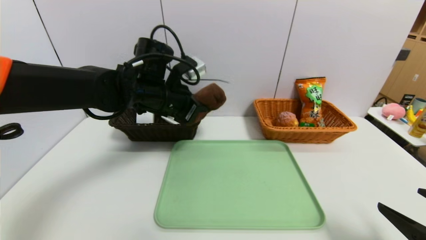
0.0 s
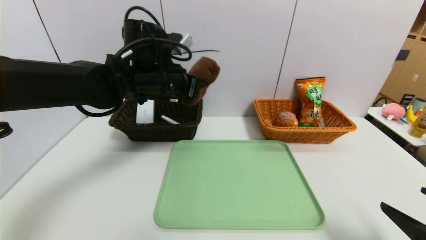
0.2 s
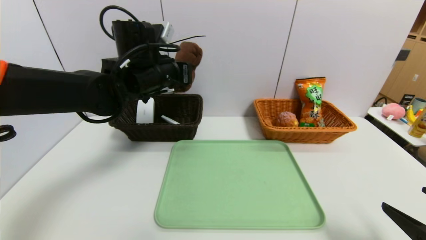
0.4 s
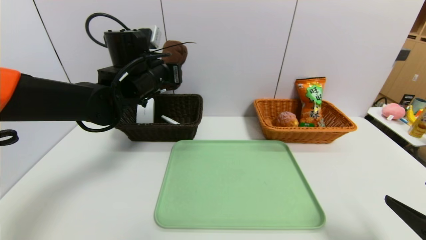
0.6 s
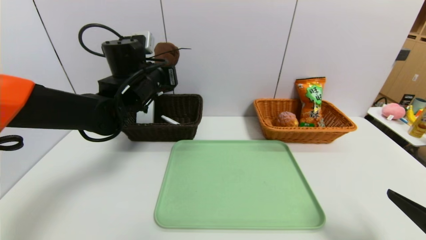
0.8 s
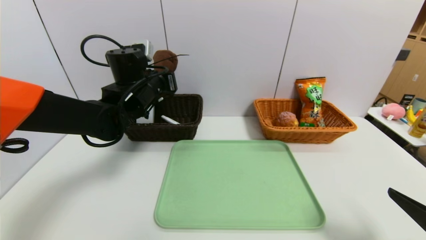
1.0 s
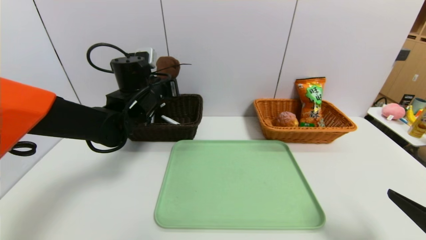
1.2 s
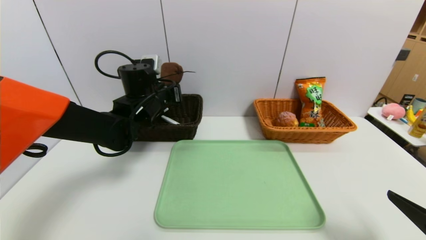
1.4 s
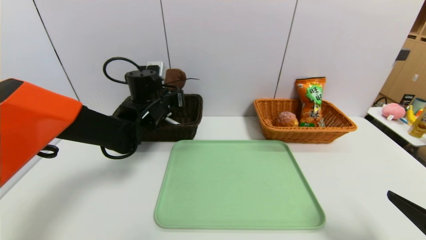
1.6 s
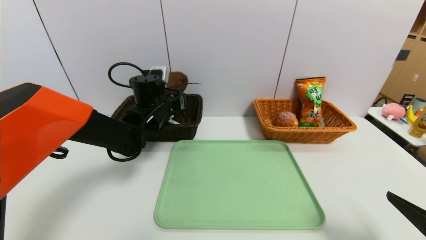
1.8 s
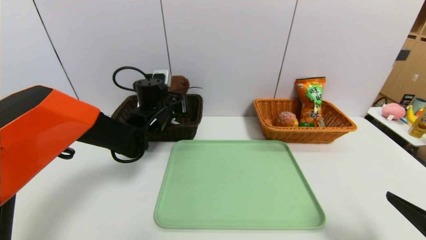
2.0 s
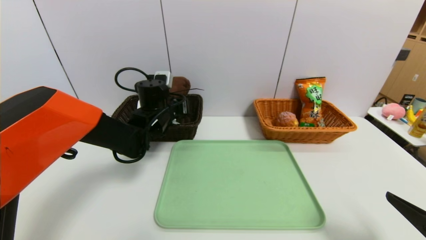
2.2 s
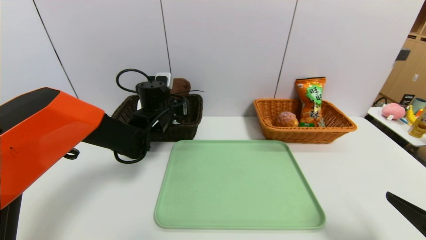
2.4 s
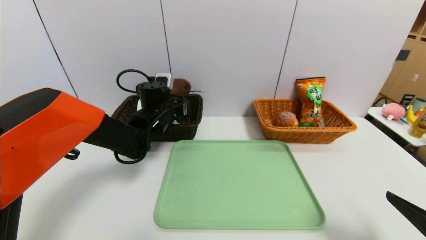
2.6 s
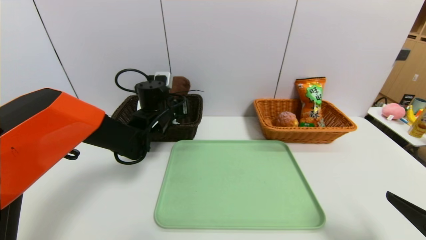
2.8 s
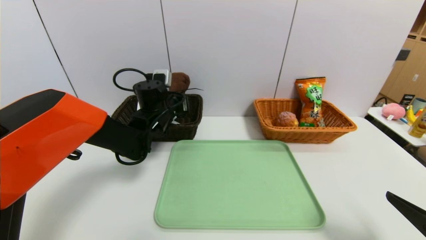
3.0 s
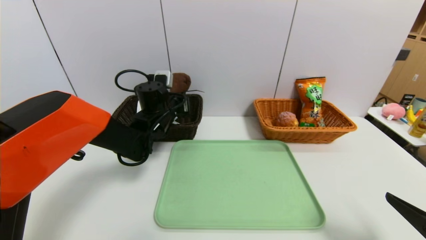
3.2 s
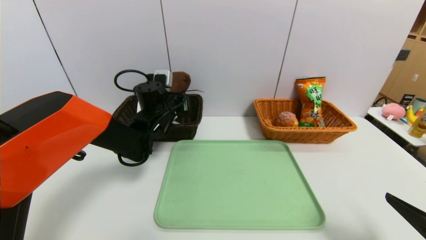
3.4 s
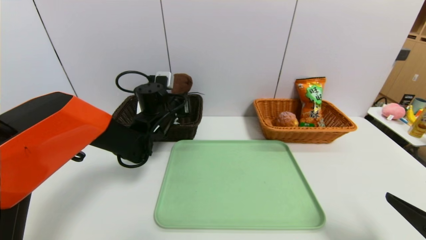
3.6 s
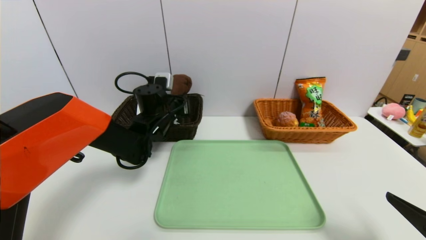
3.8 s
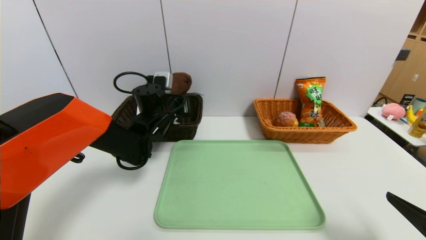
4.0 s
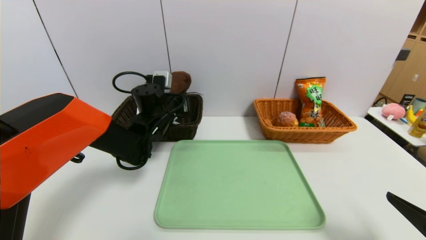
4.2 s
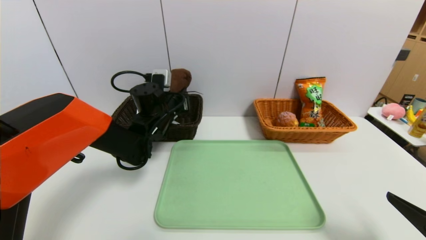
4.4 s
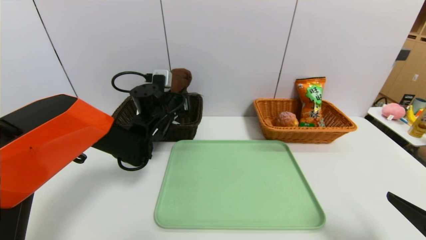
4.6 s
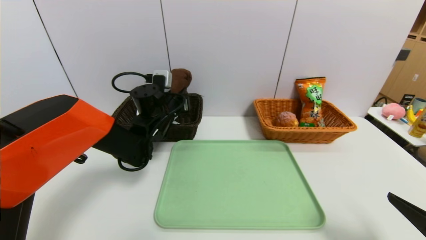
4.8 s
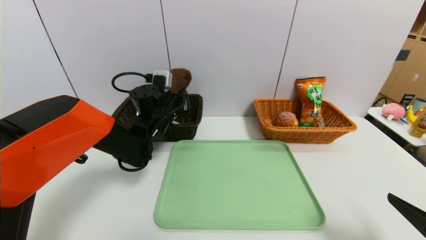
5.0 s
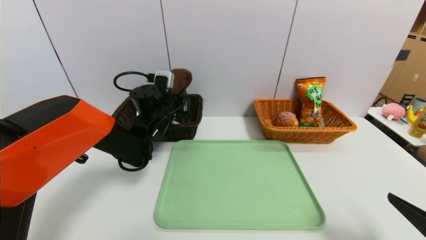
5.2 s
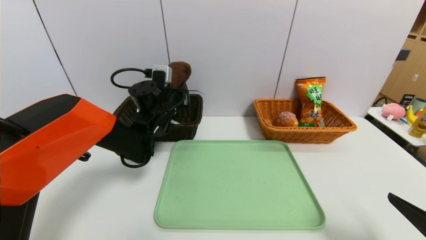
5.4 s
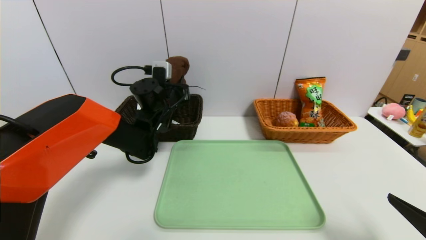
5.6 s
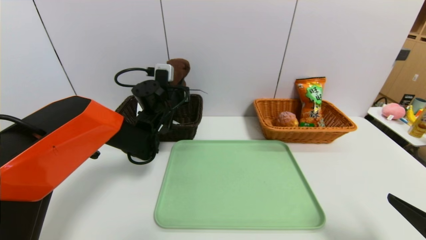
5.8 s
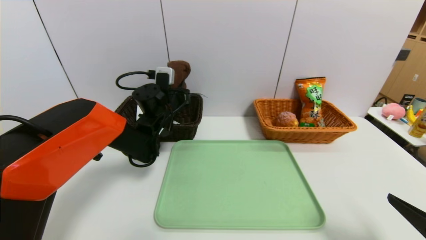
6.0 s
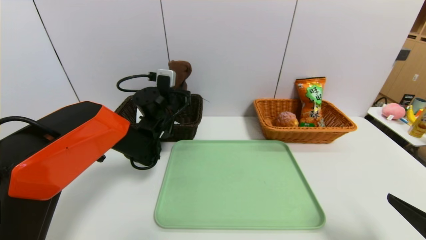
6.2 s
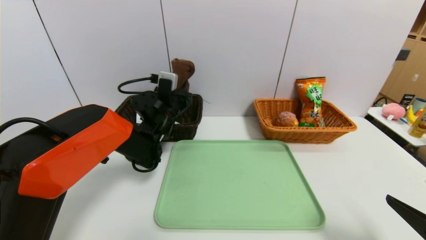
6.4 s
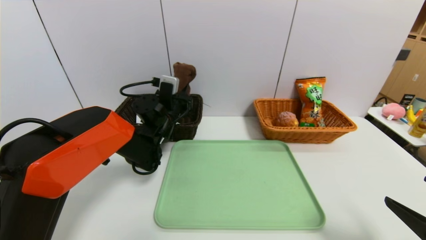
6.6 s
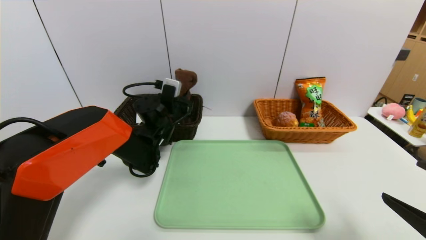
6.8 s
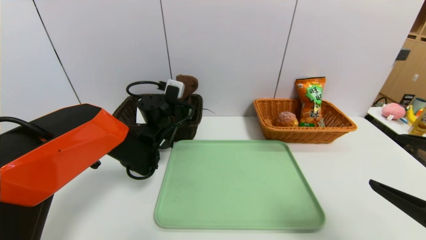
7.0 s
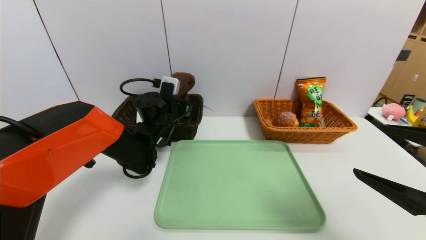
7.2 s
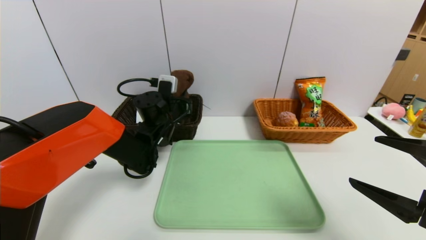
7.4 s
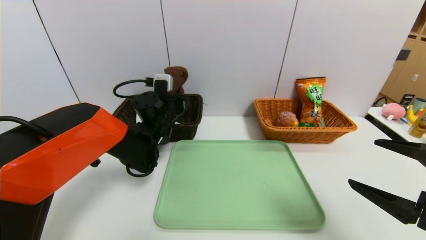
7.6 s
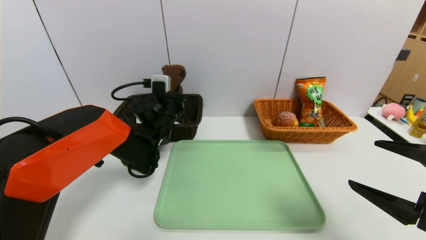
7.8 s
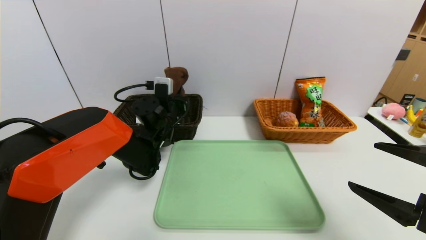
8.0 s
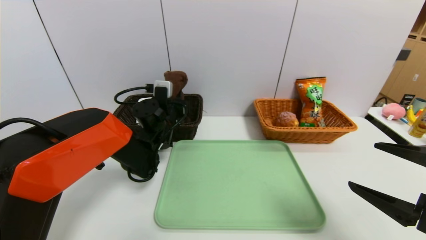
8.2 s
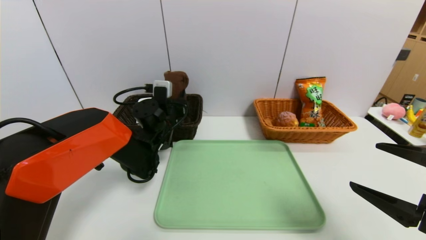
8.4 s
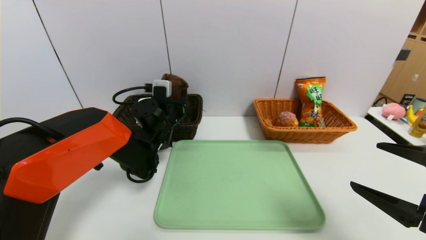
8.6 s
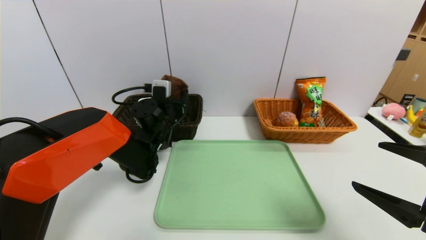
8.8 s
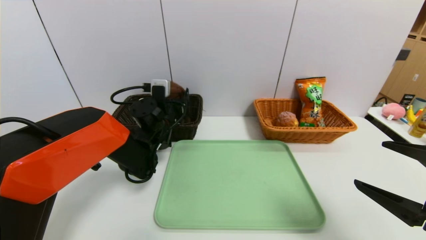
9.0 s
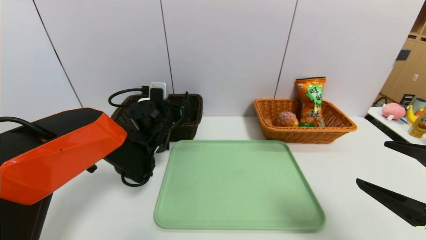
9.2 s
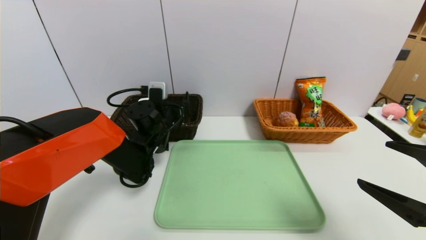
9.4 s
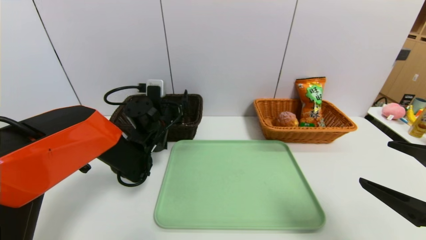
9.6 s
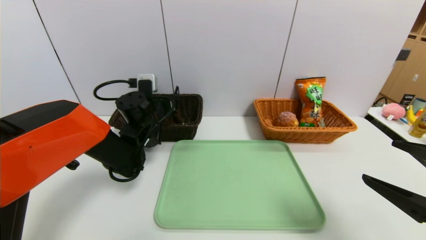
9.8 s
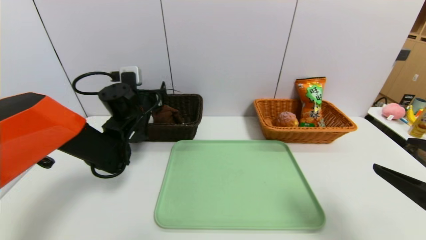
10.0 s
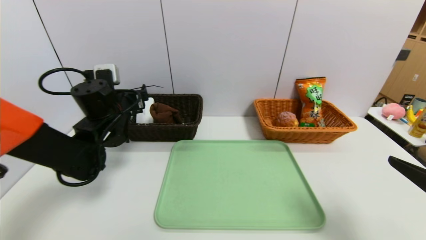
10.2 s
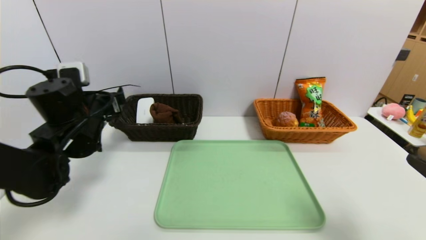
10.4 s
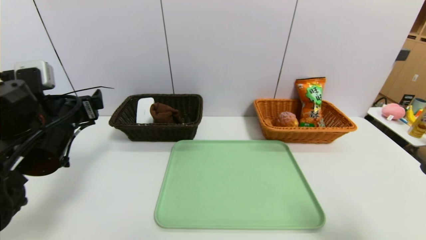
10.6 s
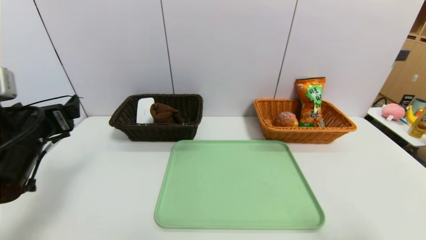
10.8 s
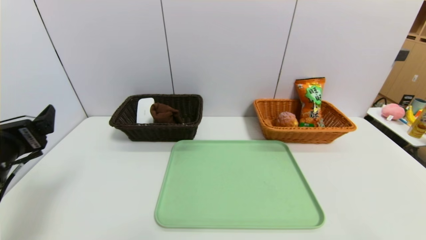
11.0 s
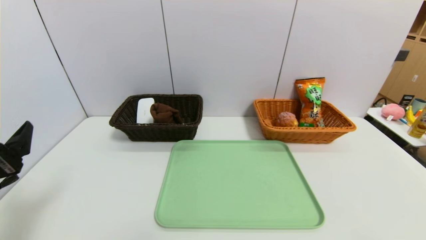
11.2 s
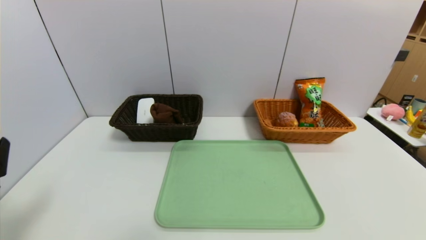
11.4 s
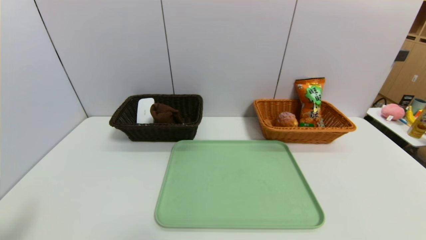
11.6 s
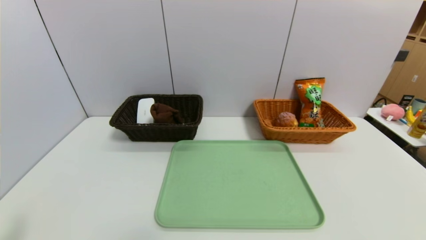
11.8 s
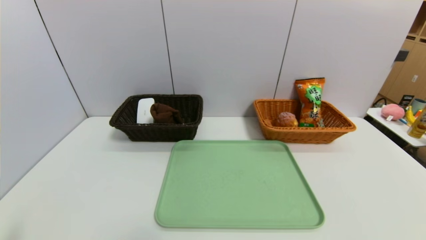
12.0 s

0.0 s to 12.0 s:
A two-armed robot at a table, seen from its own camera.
Task of the whole recording: place the food in the right basket with the right gripper, and place the non food items in the left basket with the left gripper.
Step, 0.0 to 9.6 s: Grasp the brown towel and put it in the left basket.
0.0 to 1.6 s: The left gripper travels downward by some 5 cm.
1.6 to 4.4 s: The grippers move only a little.
4.4 to 6.0 s: There are only small adjustments of the grippers.
6.0 to 7.6 s: The right gripper changes place by approximately 5 cm.
7.6 to 9.0 s: The left gripper opens.
9.0 to 10.4 s: The left gripper moves to the left, backward and upward, some 15 cm.
10.4 to 12.0 s: The left gripper heads backward, covering some 30 cm. Meanwhile the right gripper is displaced backward and downward by roughly 15 cm.

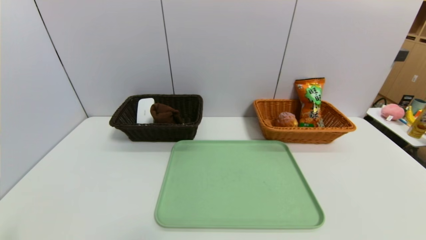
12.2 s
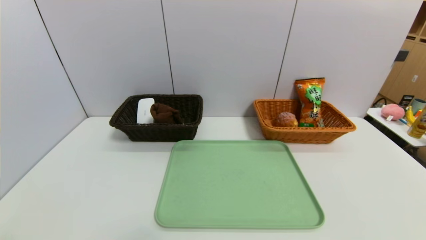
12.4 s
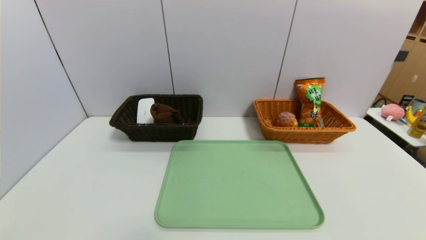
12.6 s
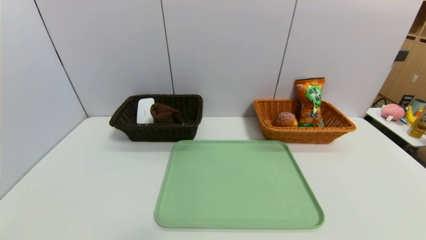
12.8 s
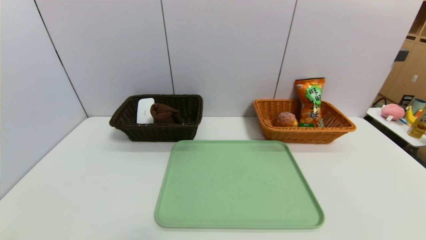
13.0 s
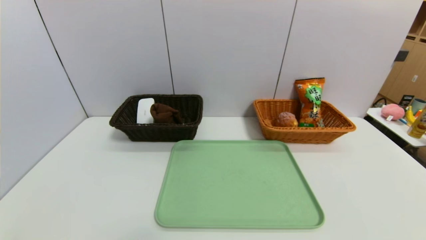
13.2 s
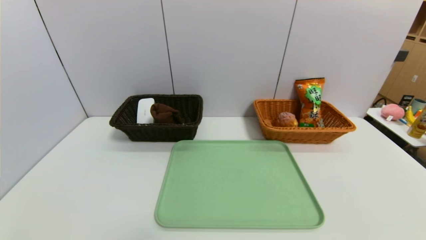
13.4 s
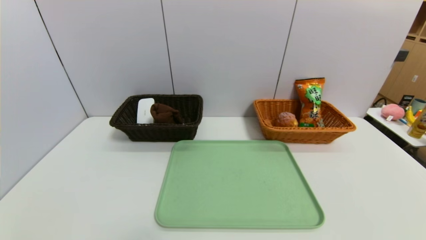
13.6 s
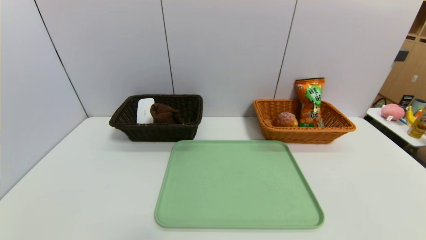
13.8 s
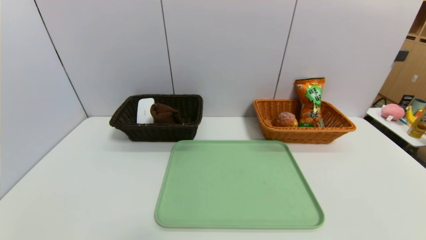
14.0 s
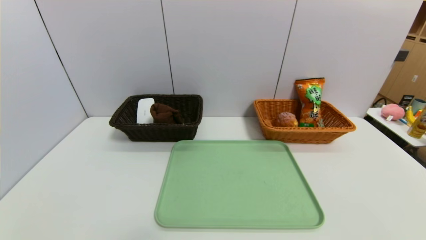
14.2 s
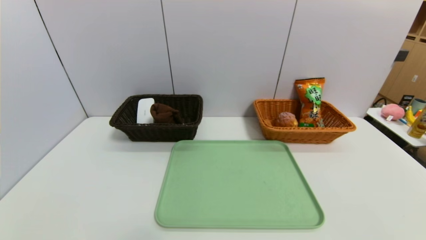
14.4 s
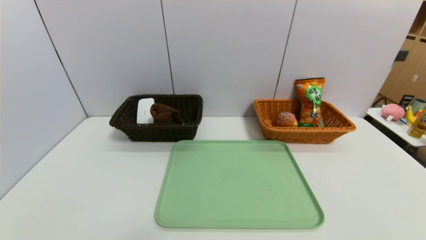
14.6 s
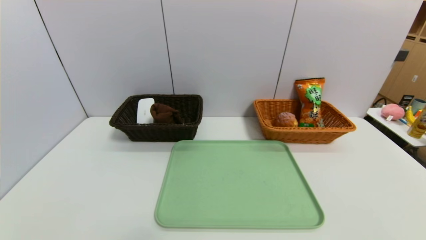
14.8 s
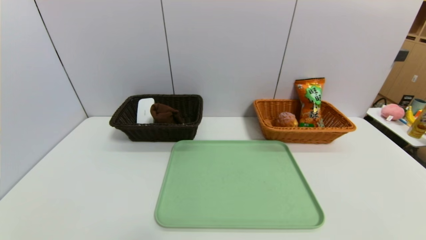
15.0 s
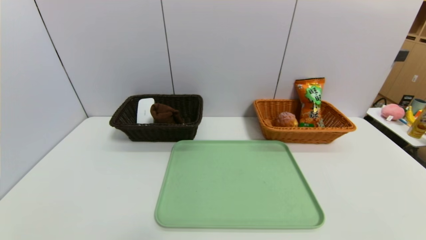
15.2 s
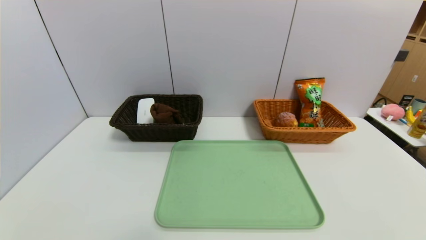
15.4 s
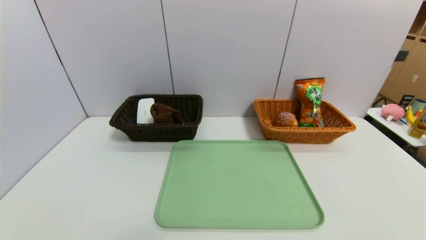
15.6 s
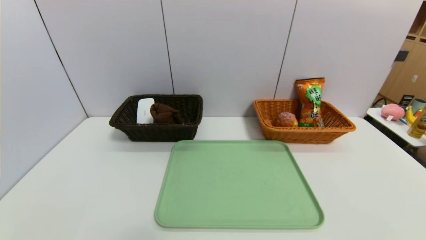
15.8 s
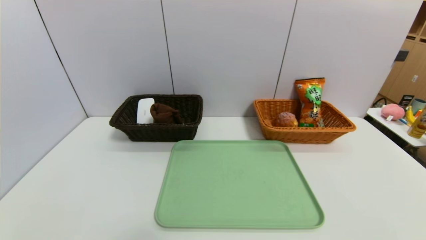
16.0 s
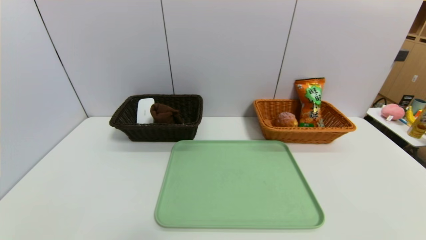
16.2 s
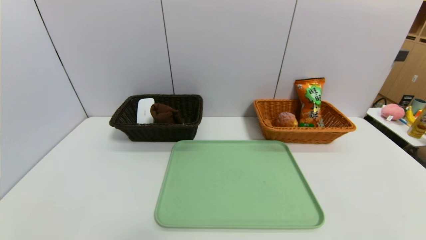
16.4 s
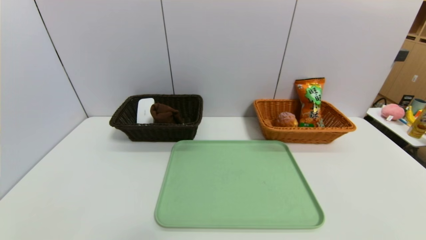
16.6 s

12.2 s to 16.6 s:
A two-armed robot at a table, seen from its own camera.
Task of the whole recording: place the food in the right basket with the right gripper, and place the non food items in the left basket with the left gripper.
15.2 to 16.6 s: Neither gripper changes place.
